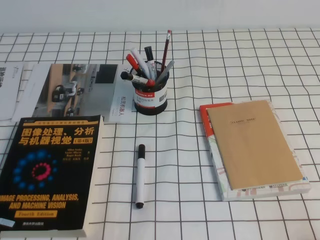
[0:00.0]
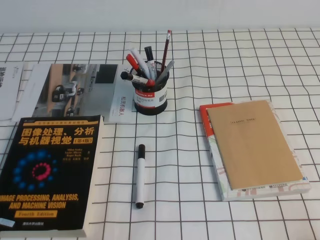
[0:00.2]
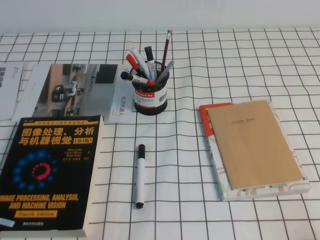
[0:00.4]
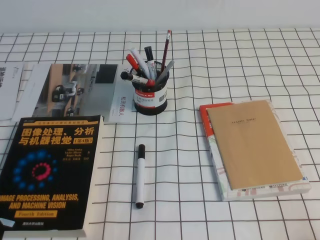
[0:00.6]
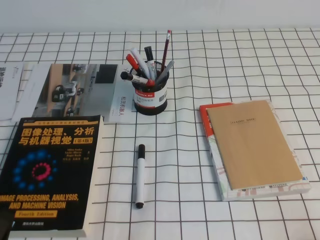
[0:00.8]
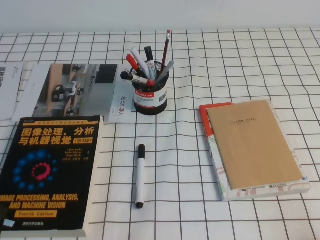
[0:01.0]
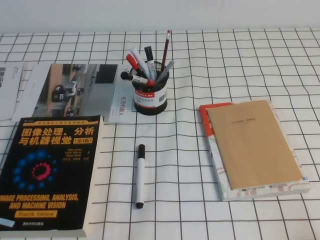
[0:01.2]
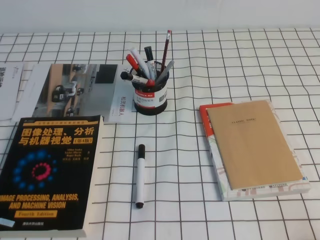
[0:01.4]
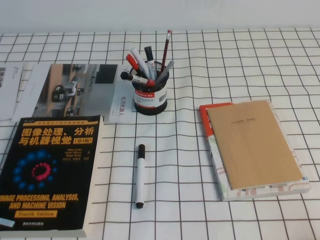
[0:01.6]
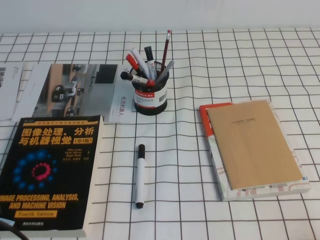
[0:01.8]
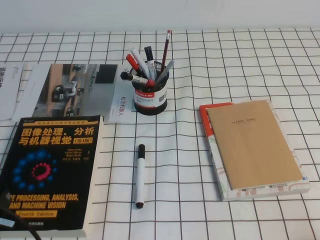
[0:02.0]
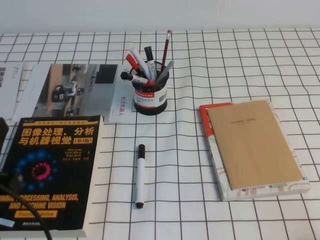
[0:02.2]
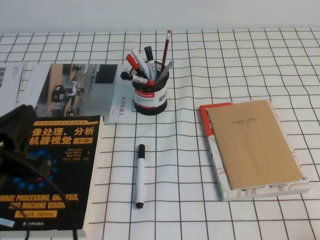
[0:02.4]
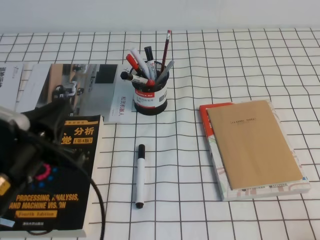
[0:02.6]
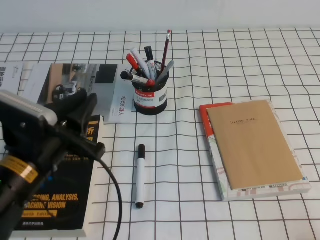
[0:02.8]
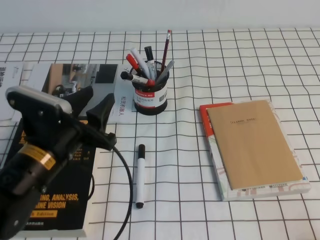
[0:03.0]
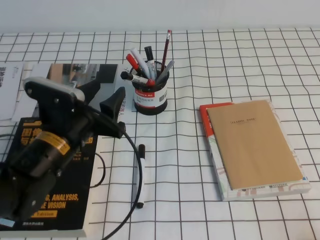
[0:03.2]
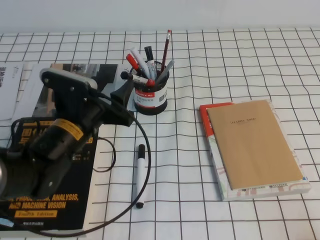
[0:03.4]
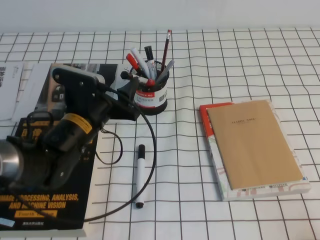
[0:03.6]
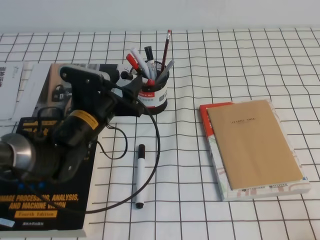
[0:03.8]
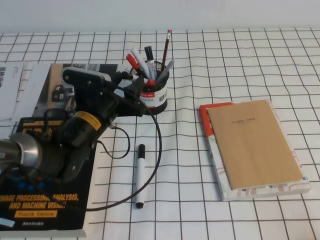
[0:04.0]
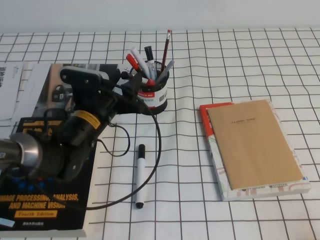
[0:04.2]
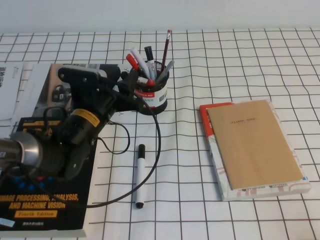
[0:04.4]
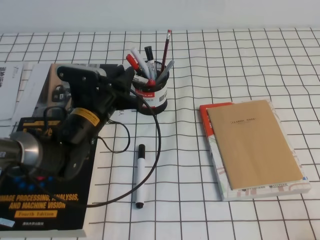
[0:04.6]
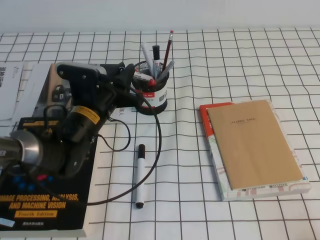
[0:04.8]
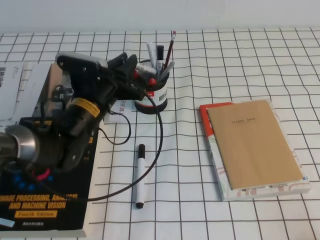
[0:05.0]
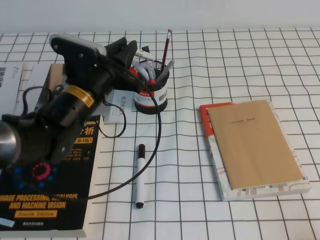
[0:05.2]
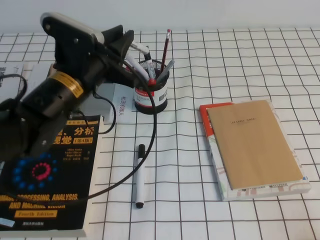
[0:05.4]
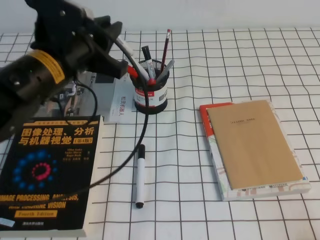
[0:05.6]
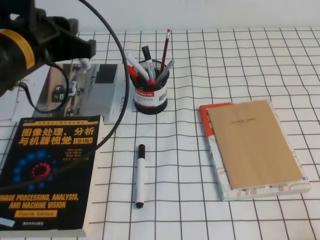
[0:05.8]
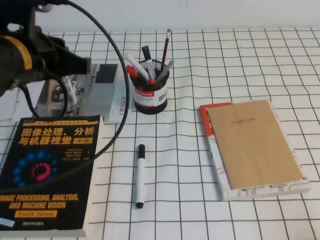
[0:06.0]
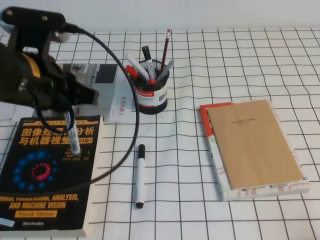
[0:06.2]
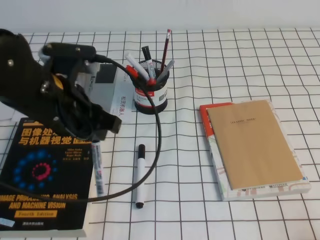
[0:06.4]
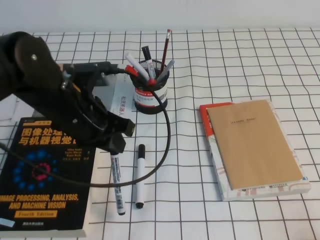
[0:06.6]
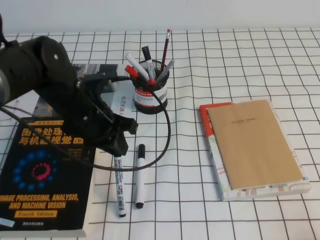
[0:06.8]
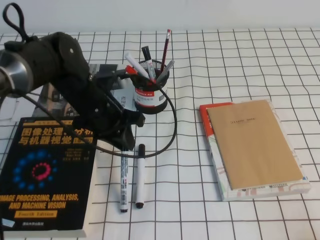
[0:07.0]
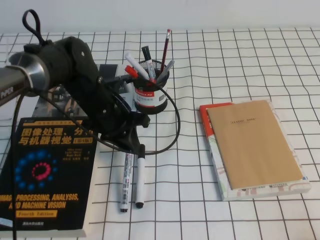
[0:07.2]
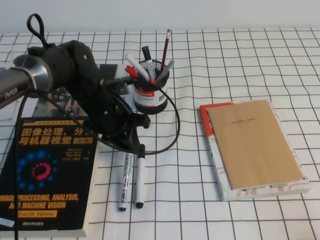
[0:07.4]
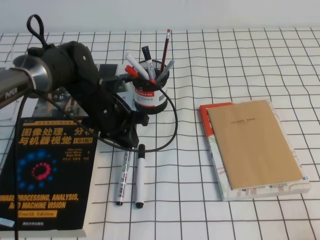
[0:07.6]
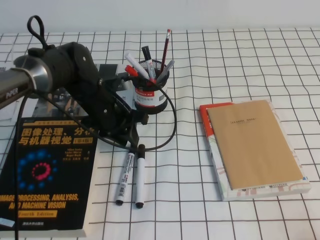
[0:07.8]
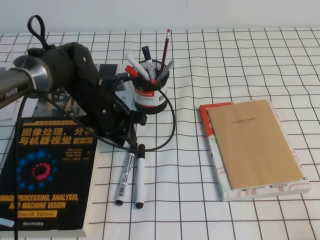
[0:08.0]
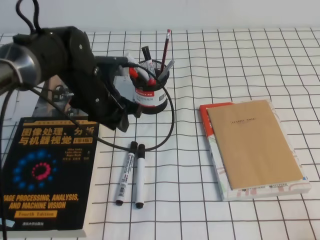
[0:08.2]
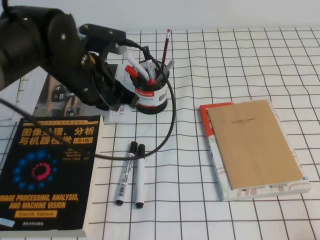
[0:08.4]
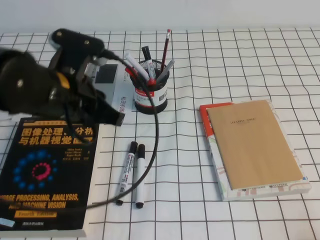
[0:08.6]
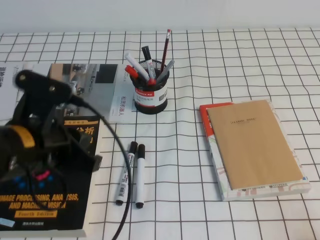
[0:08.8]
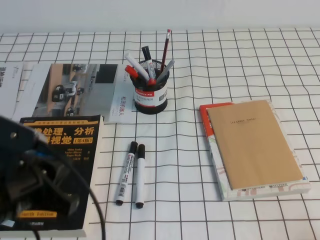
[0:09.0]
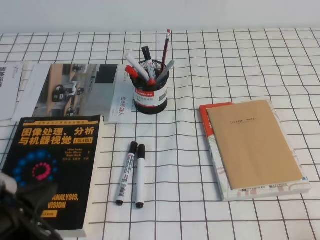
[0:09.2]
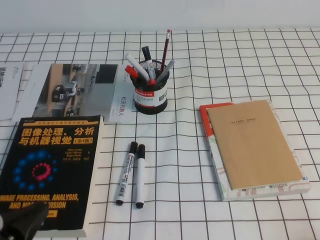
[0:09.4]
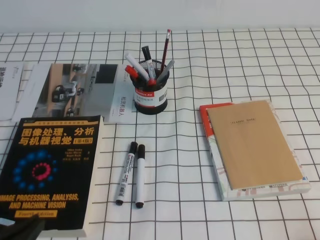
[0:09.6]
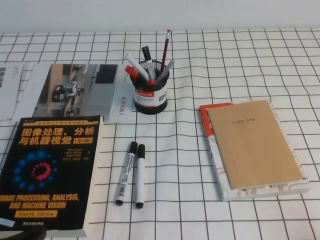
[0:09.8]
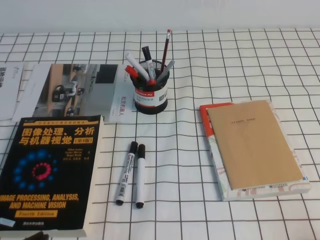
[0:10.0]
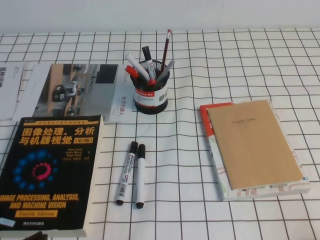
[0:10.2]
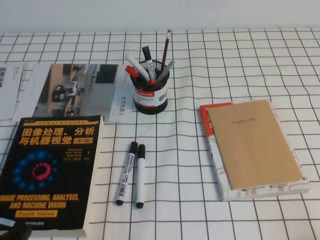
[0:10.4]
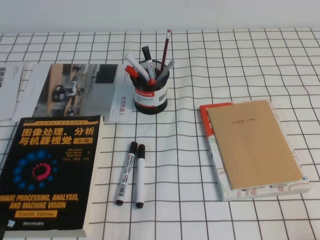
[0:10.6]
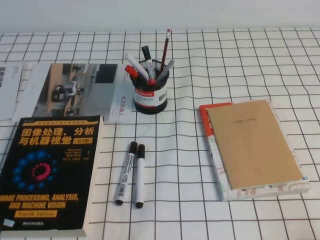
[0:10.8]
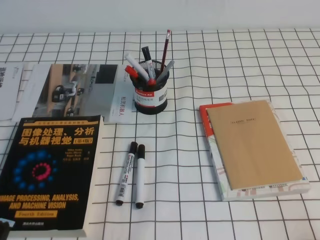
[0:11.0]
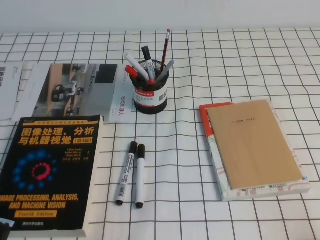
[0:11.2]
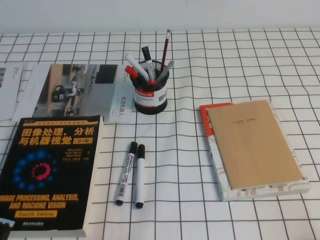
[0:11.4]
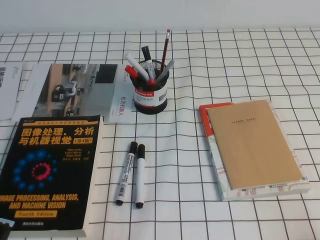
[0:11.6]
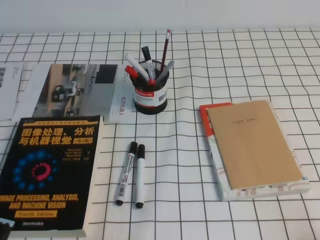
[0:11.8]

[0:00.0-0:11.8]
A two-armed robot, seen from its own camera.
Step, 0:00.0 to 0:11.8: Pick up the pen from the pen holder.
0:01.4 to 0:03.0: The left gripper travels forward and to the right by some 20 cm, and opens up.
0:03.0 to 0:04.4: The left gripper moves forward and downward, approximately 10 cm.
0:04.4 to 0:06.0: The left gripper shifts roughly 15 cm upward, and closes.
0:06.0 to 0:07.4: The left gripper shifts some 20 cm downward, forward and to the right.
0:07.4 to 0:08.8: The left gripper moves backward and upward, approximately 20 cm.
0:08.8 to 0:10.4: The left gripper is displaced backward, downward and to the left by about 20 cm.

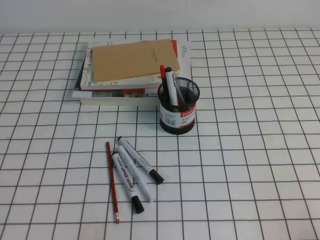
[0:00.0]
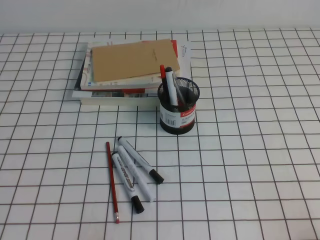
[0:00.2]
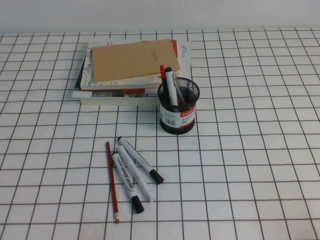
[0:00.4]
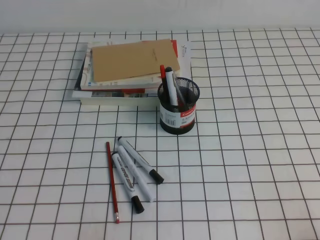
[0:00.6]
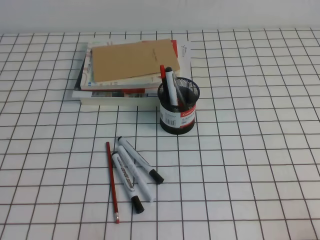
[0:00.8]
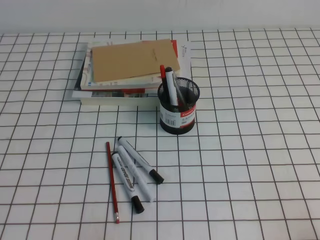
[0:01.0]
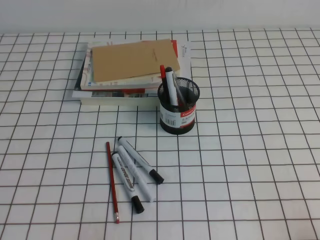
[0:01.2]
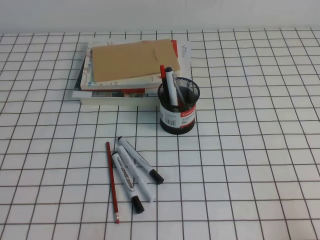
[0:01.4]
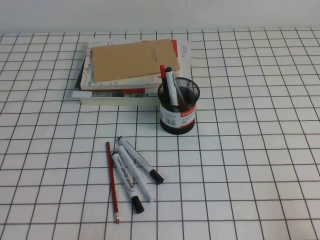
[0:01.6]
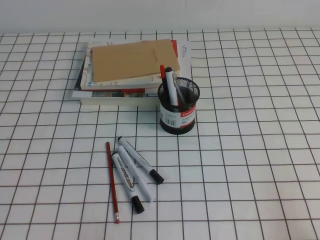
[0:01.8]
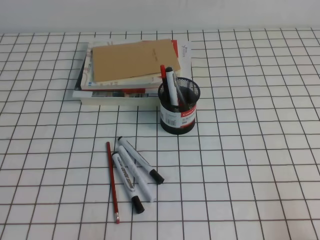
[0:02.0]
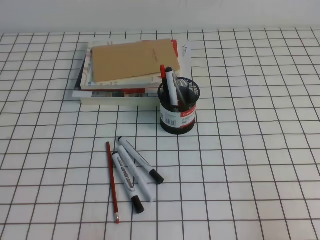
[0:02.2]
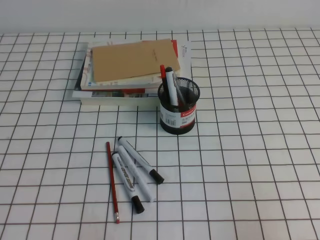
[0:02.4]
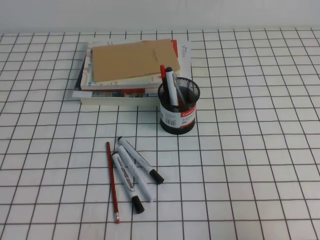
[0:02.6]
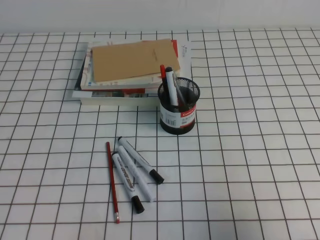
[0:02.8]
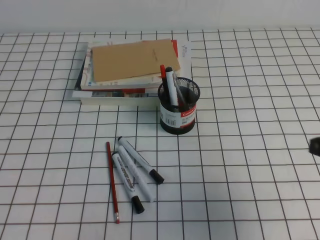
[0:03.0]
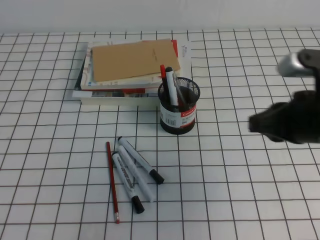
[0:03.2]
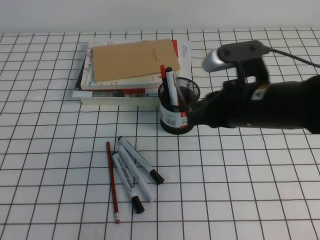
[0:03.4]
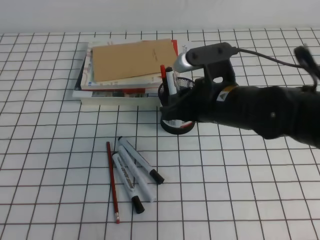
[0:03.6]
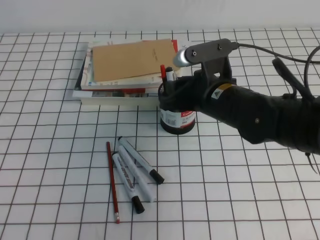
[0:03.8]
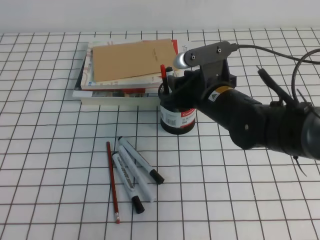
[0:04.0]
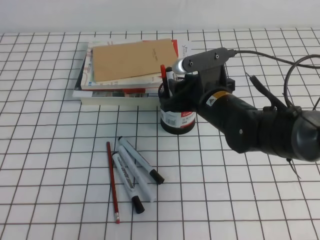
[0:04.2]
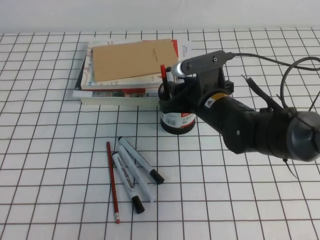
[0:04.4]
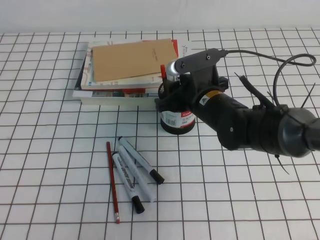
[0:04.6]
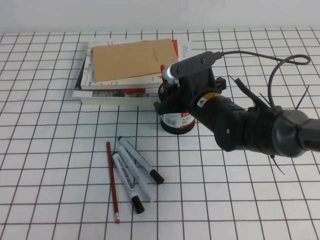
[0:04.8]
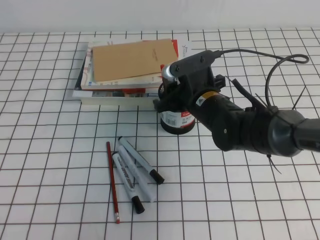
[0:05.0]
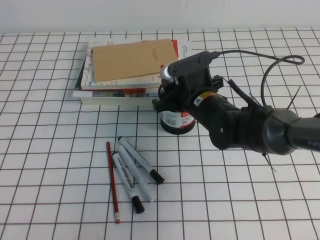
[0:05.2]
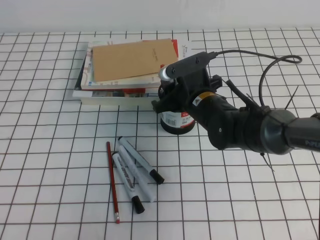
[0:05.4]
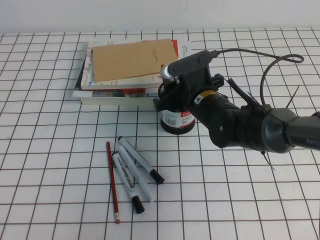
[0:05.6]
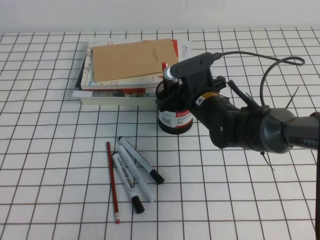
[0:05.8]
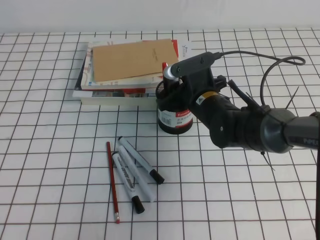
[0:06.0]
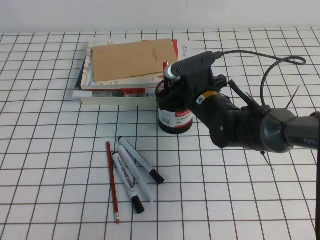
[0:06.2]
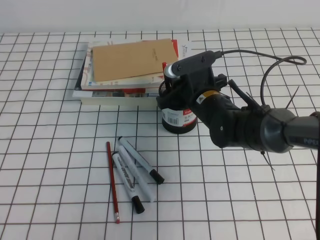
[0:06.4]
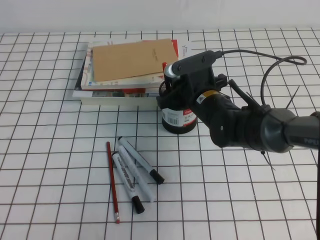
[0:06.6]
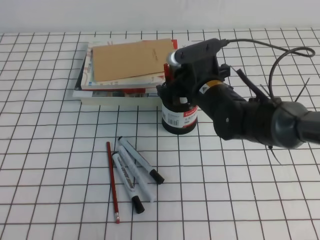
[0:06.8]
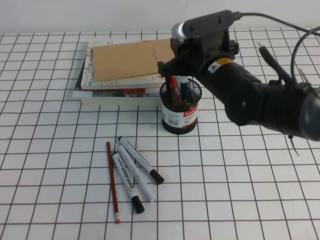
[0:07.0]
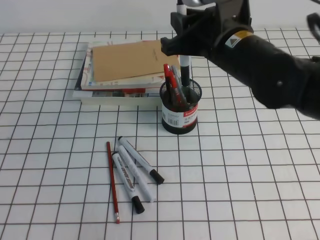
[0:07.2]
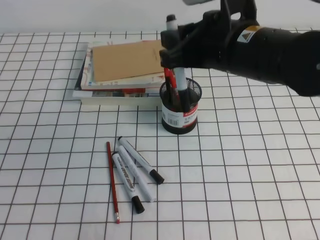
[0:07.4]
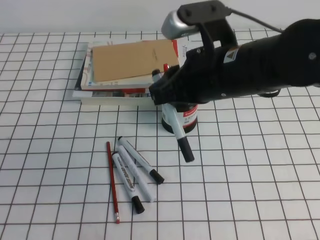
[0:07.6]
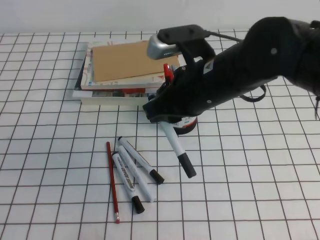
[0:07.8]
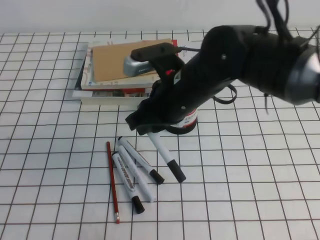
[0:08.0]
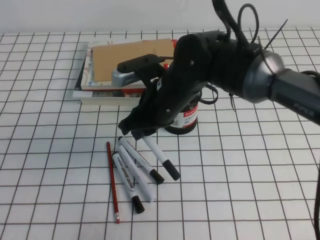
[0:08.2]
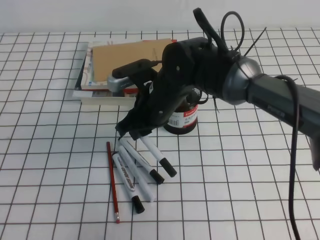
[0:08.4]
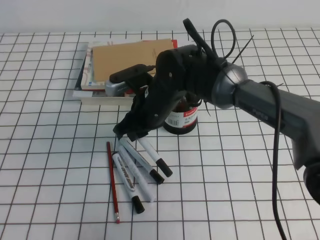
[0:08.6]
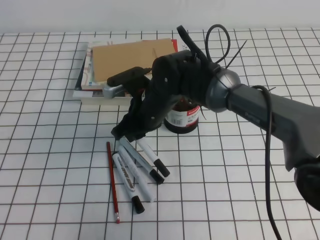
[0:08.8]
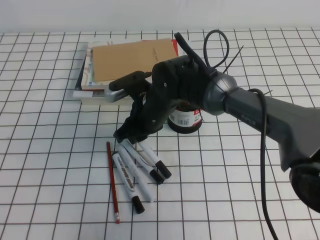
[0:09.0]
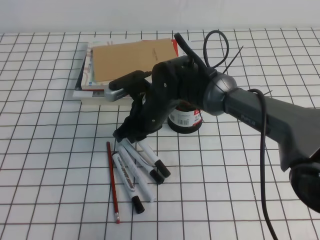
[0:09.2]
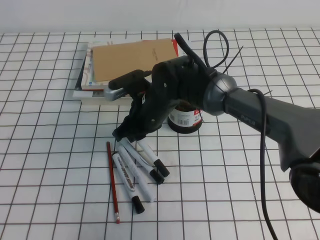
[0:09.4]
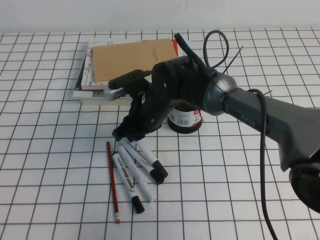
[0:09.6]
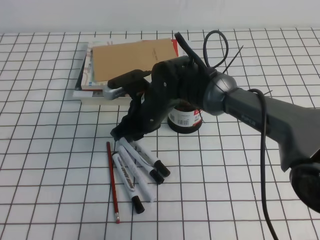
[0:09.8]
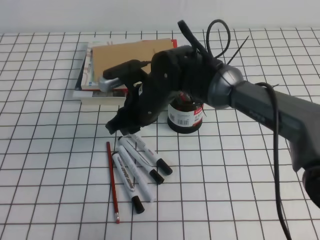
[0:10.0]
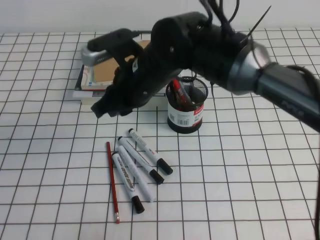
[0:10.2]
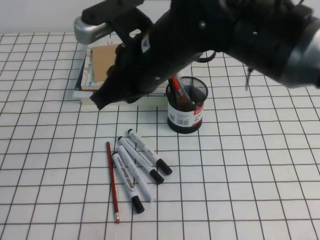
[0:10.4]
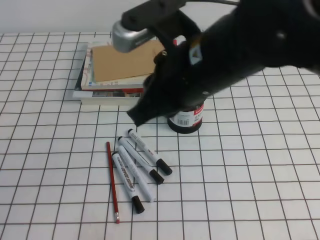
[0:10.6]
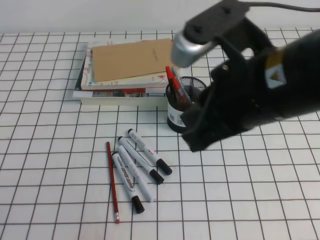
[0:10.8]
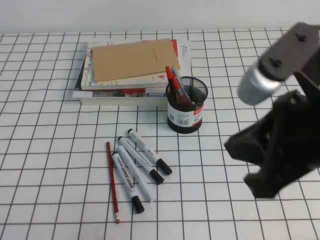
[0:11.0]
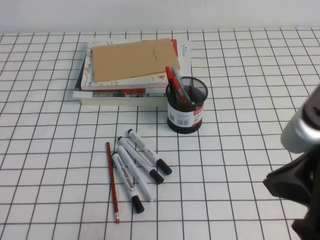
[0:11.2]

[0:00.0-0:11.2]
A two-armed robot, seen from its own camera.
0:01.6 to 0:03.2: The right gripper travels forward, upward and to the left by some 20 cm.
0:03.2 to 0:04.8: The right gripper shifts roughly 20 cm to the left, forward and downward, and opens.
0:04.8 to 0:06.4: The right gripper closes its fingers.
0:06.4 to 0:08.0: The right gripper shifts about 15 cm upward and backward.
0:08.0 to 0:09.6: The right gripper heads downward, forward and to the left, covering roughly 15 cm.
0:09.6 to 0:11.2: The right gripper goes roughly 35 cm backward, to the right and upward, and closes its fingers.
